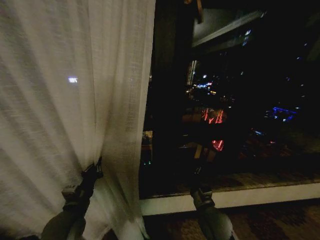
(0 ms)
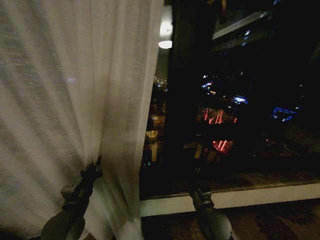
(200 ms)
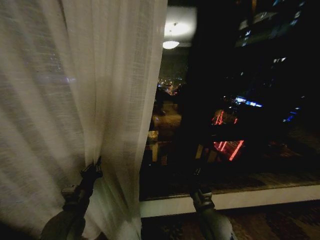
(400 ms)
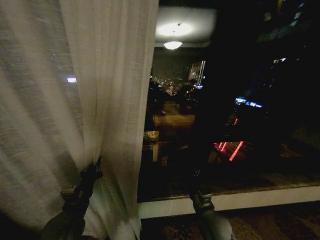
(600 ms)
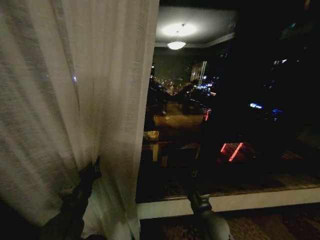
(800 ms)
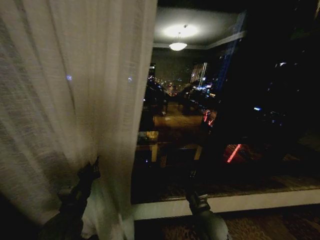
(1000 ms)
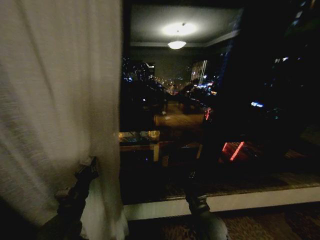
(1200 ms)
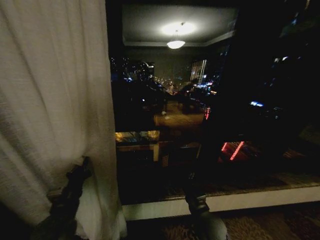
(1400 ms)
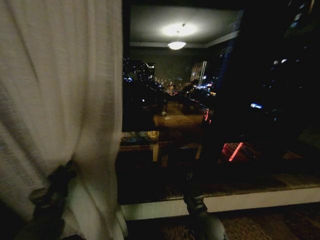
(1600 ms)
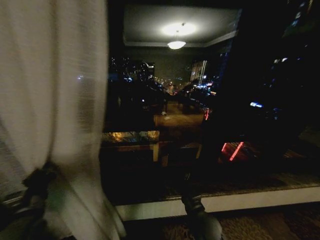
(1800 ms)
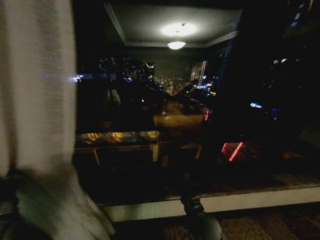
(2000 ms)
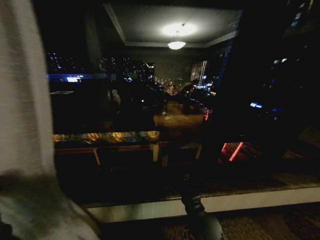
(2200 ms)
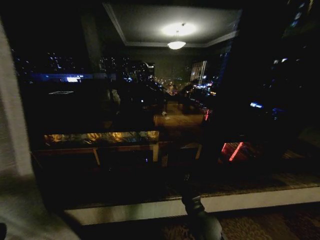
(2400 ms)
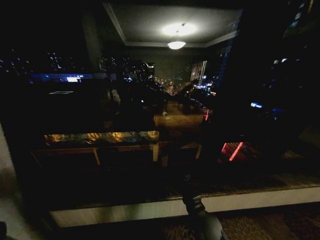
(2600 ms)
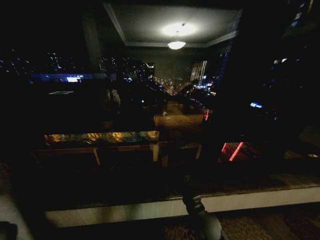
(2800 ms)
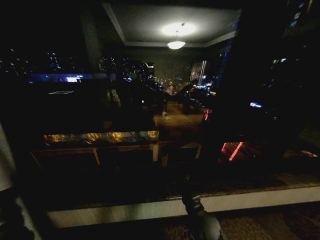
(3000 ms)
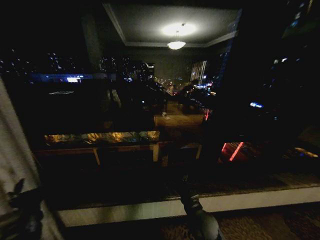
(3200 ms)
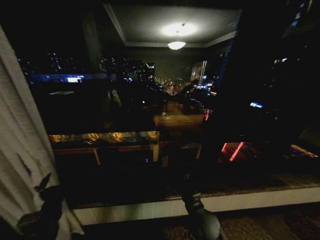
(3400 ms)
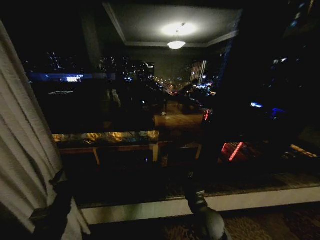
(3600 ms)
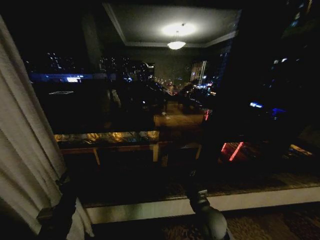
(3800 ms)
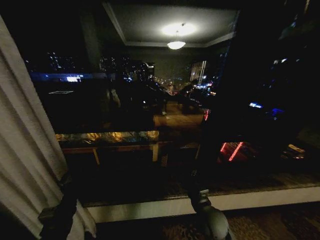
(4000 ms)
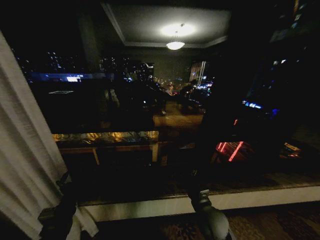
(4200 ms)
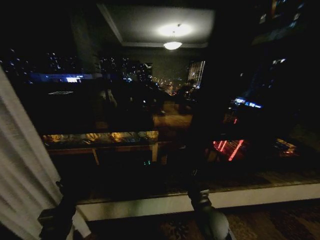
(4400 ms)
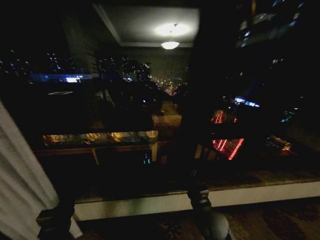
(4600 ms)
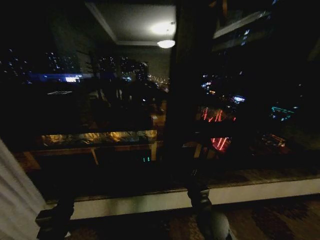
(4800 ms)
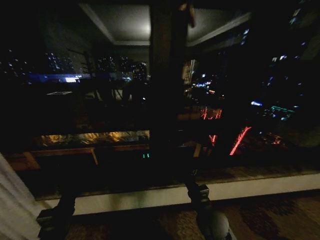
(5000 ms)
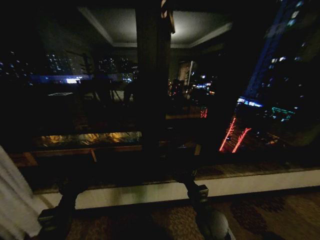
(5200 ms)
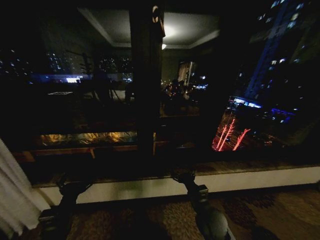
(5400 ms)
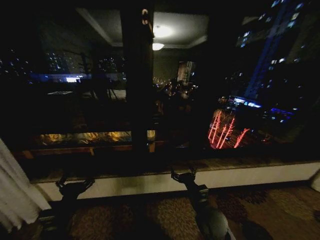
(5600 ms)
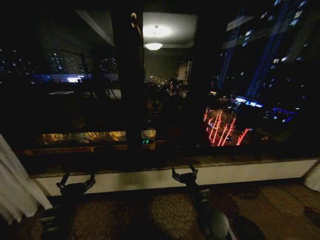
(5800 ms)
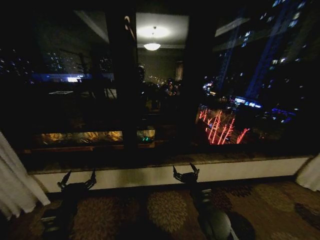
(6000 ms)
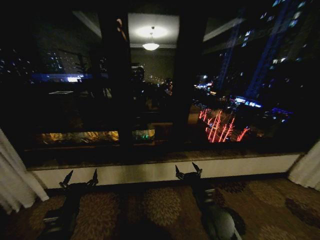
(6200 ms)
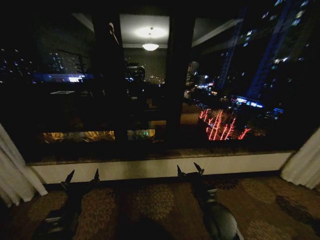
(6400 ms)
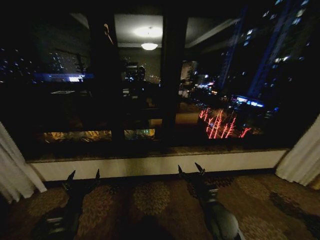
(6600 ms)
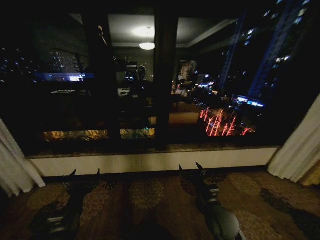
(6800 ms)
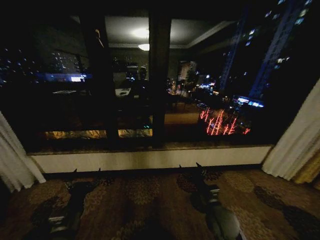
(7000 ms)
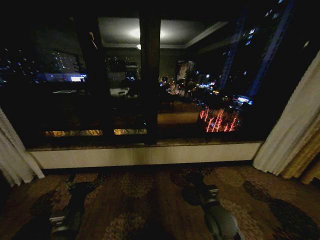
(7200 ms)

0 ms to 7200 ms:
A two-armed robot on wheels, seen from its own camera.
Task of the whole recording: Open the curtains by pulling them apart, changing their state from closed to fully open.
1400 ms to 2800 ms: The left gripper moves to the left, some 15 cm.
2800 ms to 4400 ms: The left gripper goes some 15 cm to the right, and opens up.
